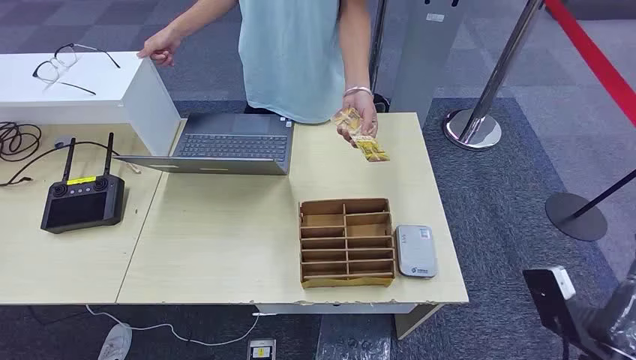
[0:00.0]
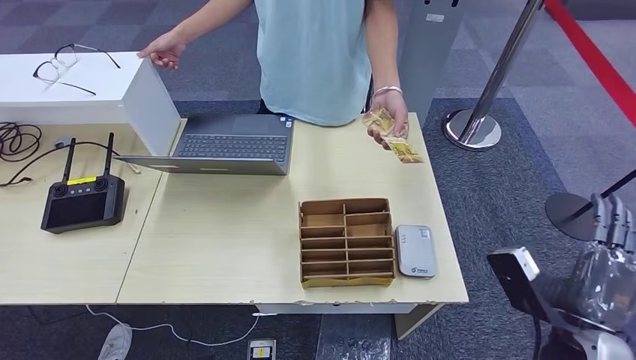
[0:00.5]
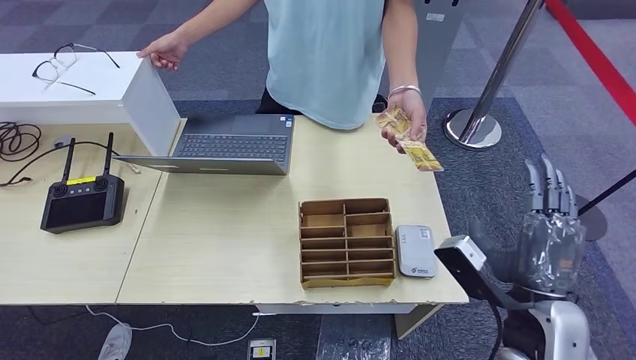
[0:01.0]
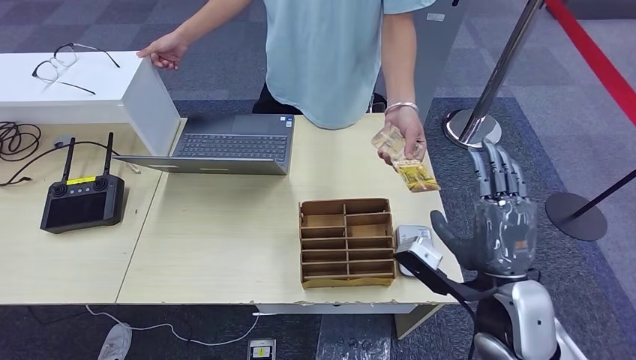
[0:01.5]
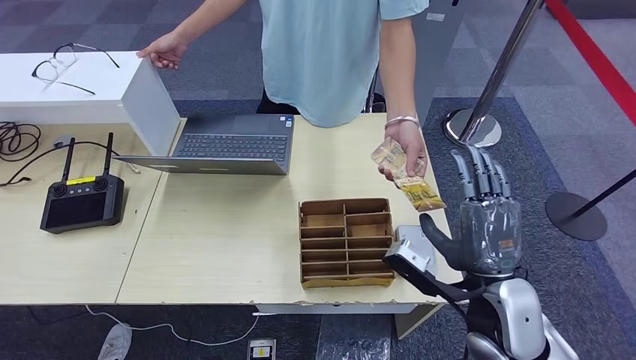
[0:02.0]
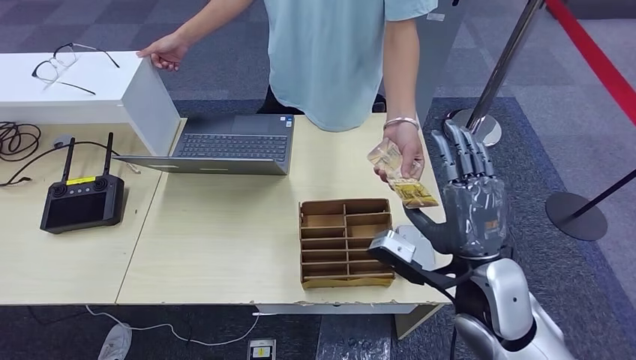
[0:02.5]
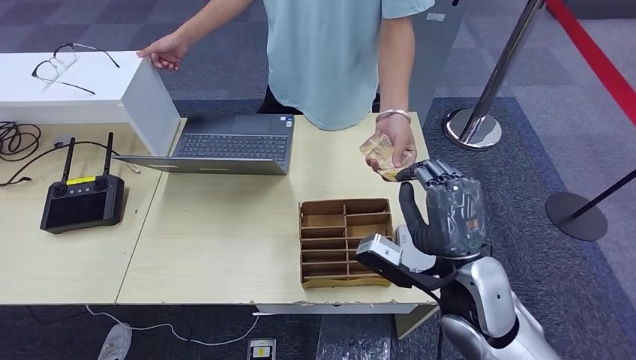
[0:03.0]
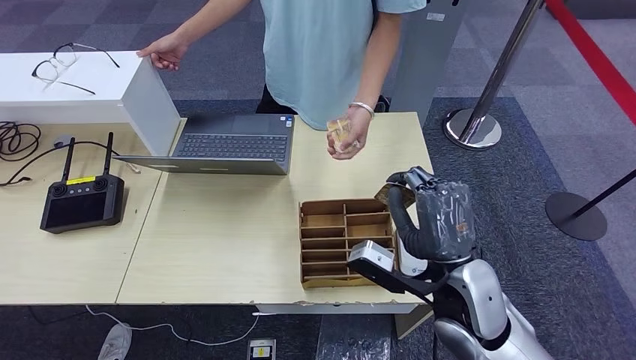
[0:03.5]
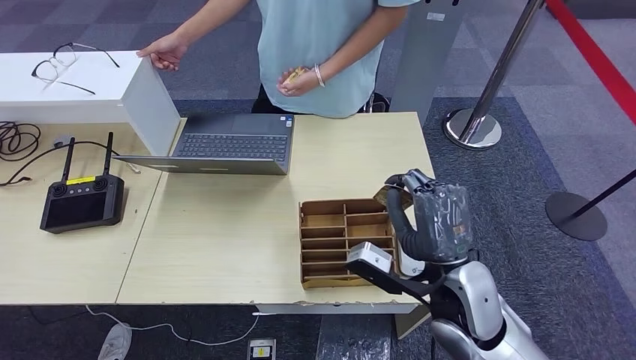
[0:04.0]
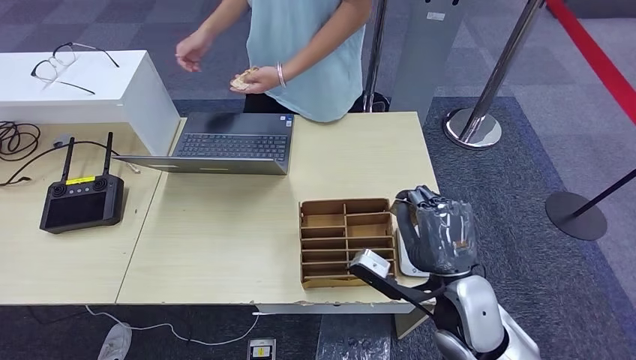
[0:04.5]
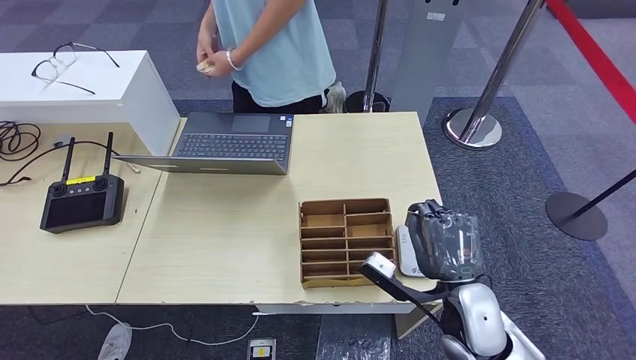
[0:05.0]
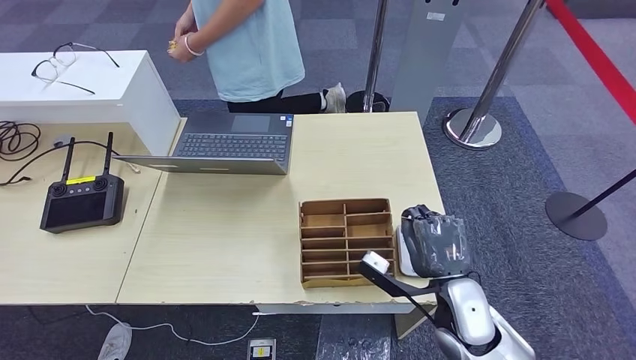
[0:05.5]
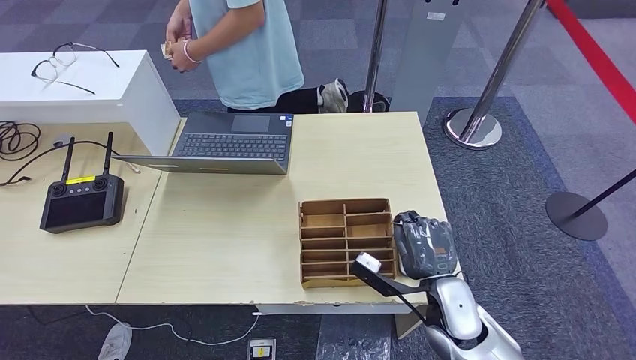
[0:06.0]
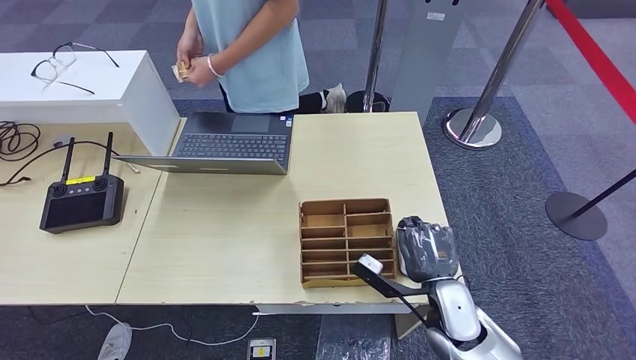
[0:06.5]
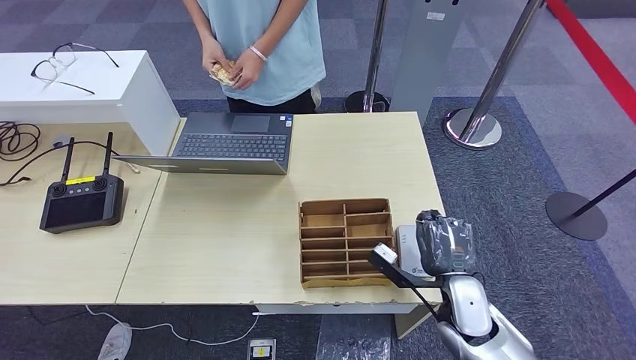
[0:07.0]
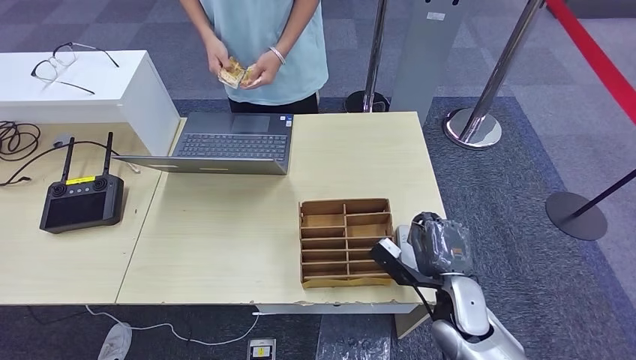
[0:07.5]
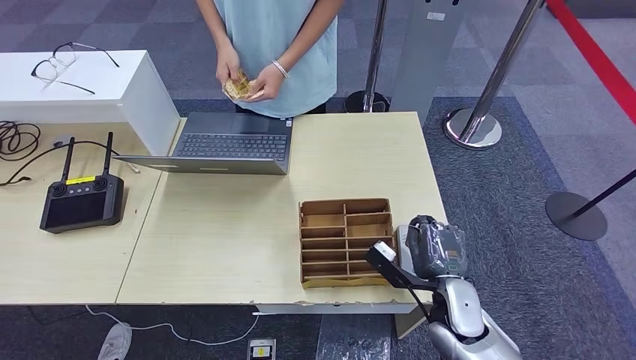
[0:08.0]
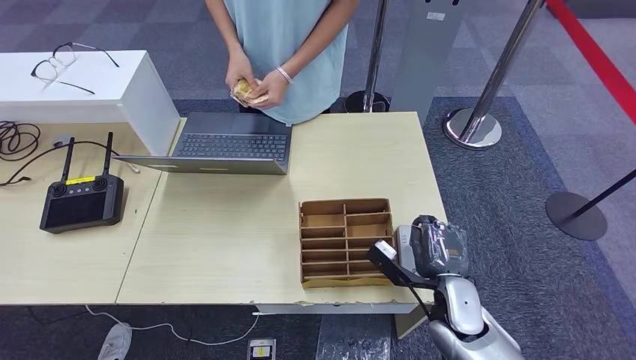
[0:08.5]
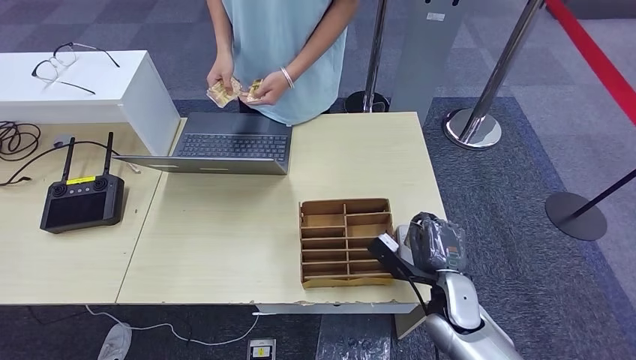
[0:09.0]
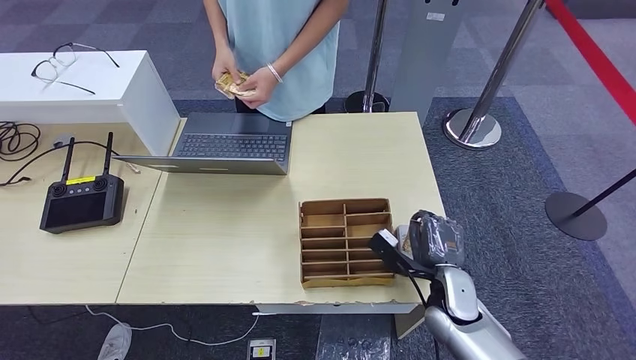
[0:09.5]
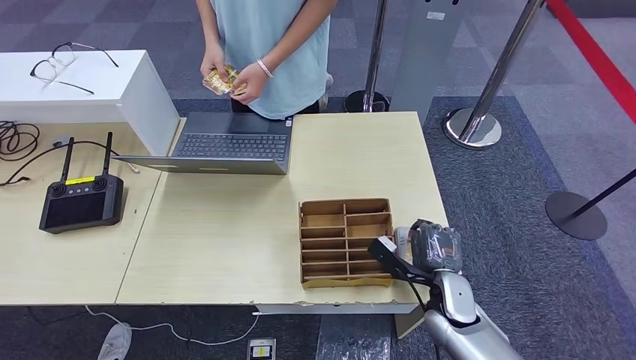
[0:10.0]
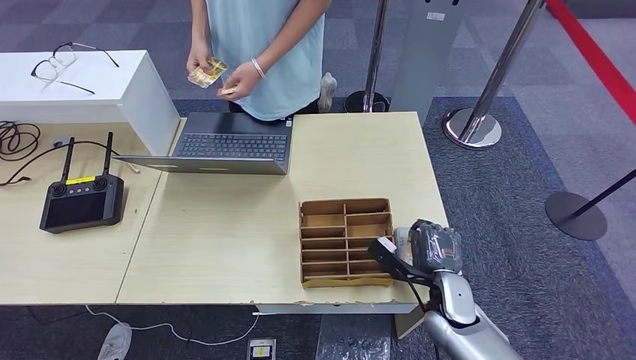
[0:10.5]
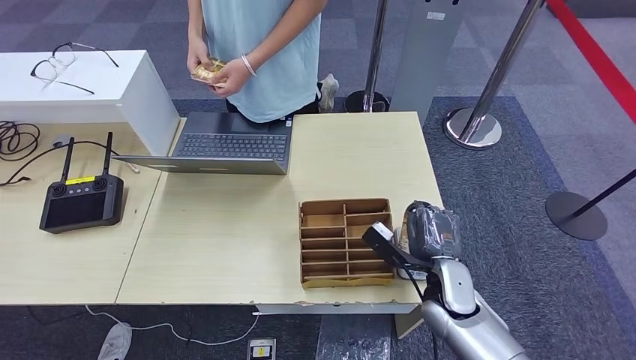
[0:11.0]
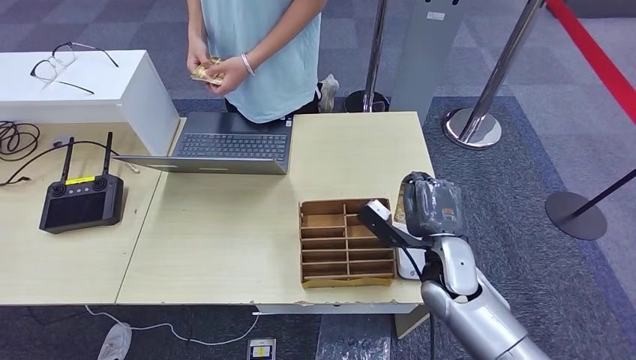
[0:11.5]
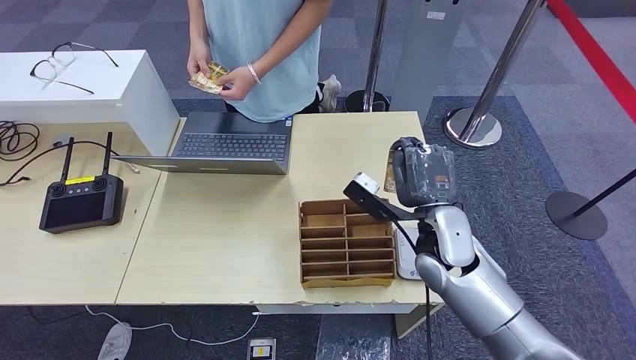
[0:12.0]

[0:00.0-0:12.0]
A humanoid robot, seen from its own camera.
Step, 0:00.0 to 0:03.5: Take the ID card from the person's hand.
Step, 0:04.0 to 0:09.5: Place the ID card on the card reader.
0:02.0 to 0:04.0: The right hand moves approximately 5 cm.
0:04.0 to 0:06.0: The right hand heads downward, covering roughly 10 cm.
0:06.0 to 0:08.0: The hands make only small movements.
0:08.0 to 0:10.0: The hands make only small movements.
0:10.0 to 0:12.0: The right hand heads upward, covering approximately 15 cm.

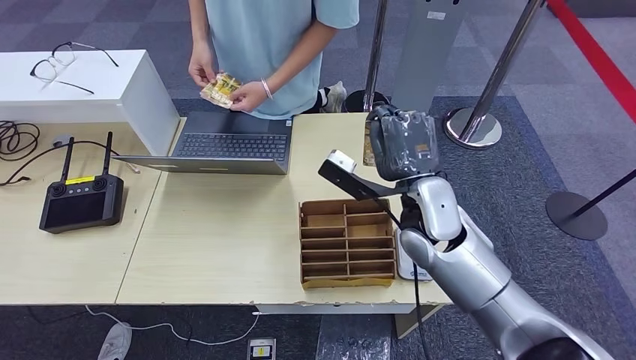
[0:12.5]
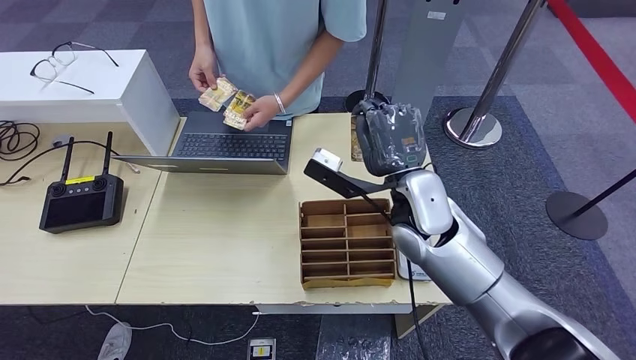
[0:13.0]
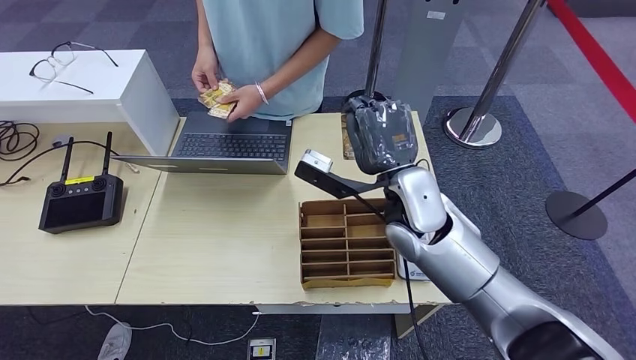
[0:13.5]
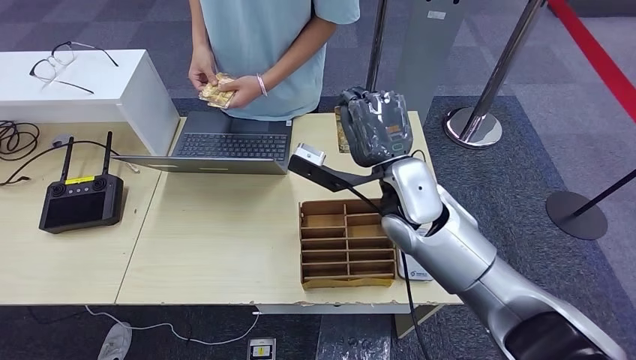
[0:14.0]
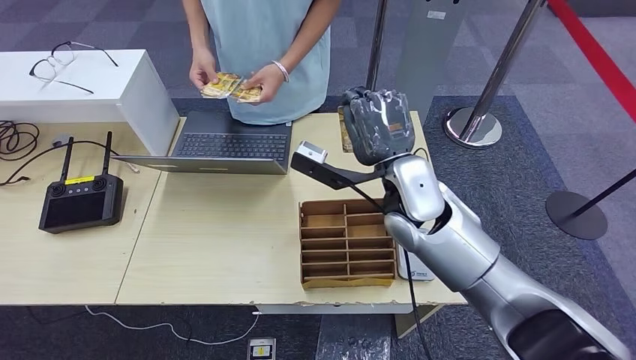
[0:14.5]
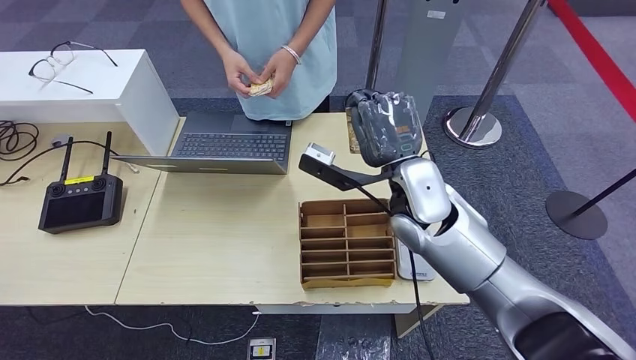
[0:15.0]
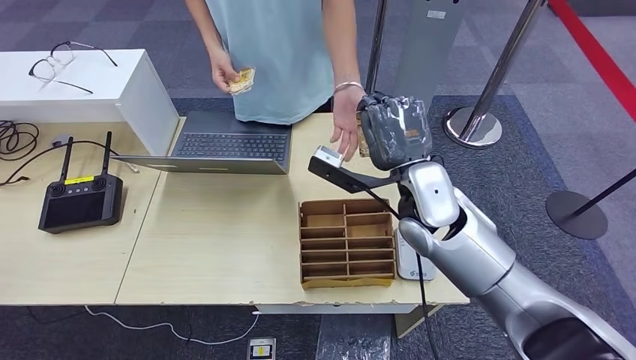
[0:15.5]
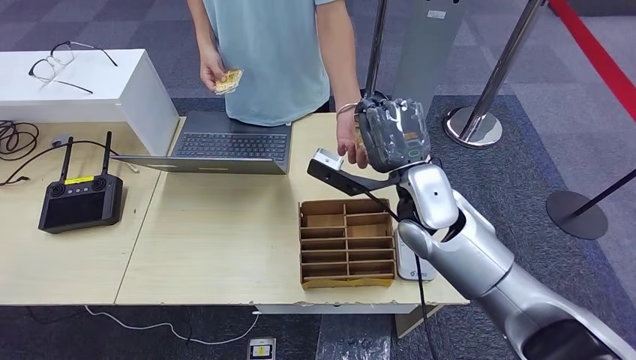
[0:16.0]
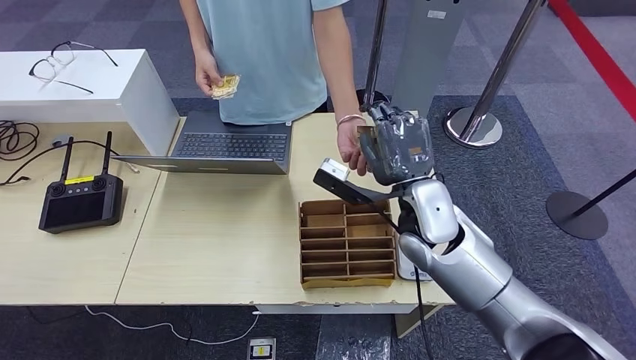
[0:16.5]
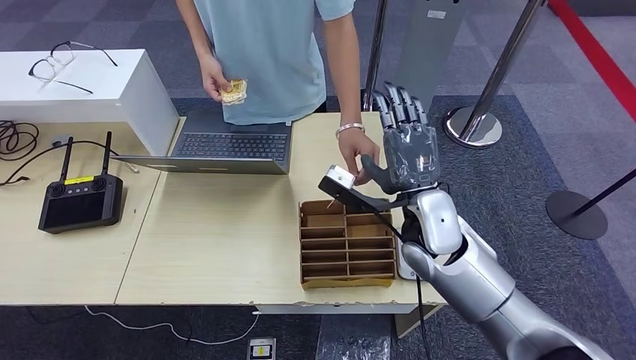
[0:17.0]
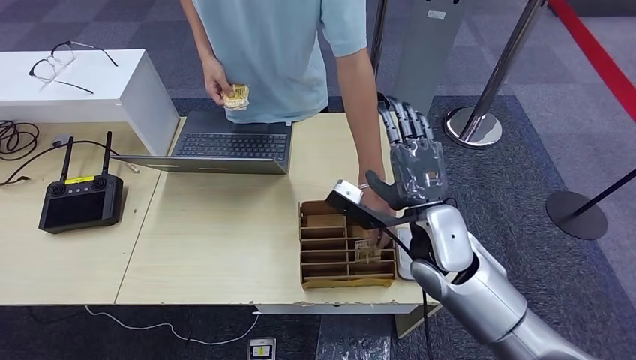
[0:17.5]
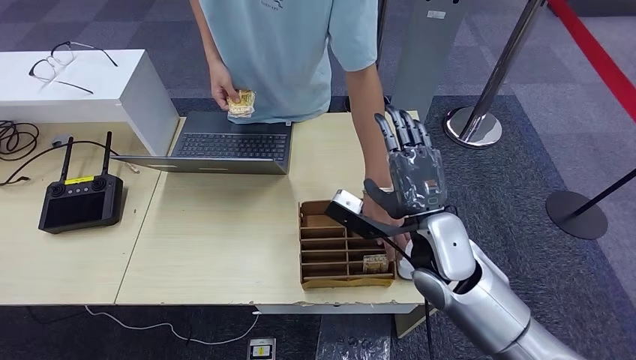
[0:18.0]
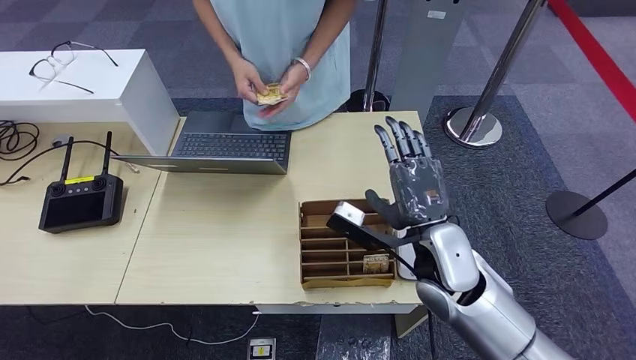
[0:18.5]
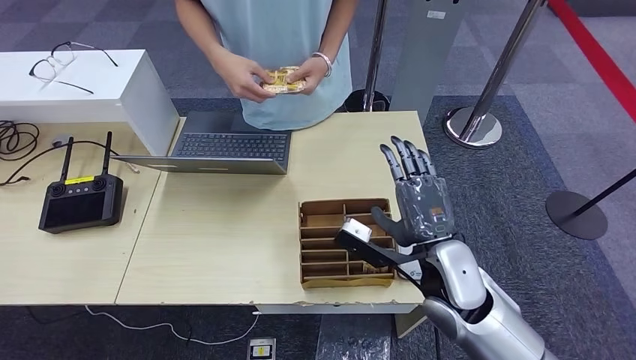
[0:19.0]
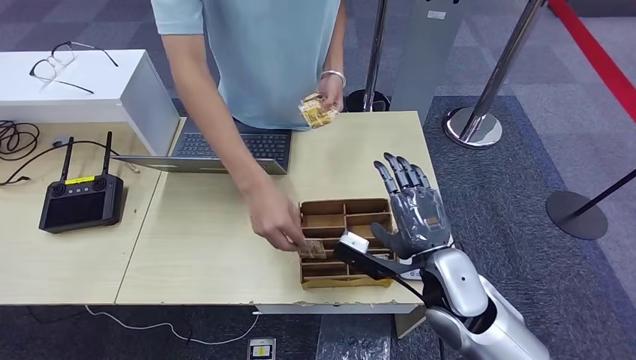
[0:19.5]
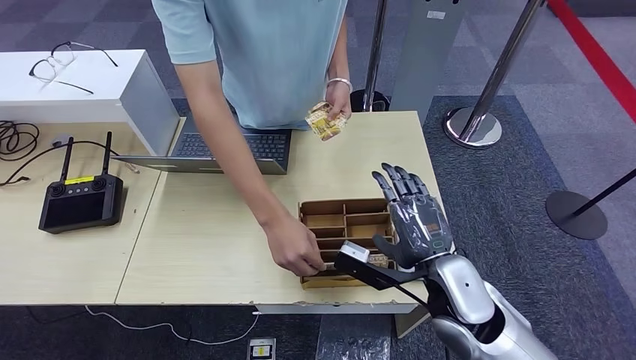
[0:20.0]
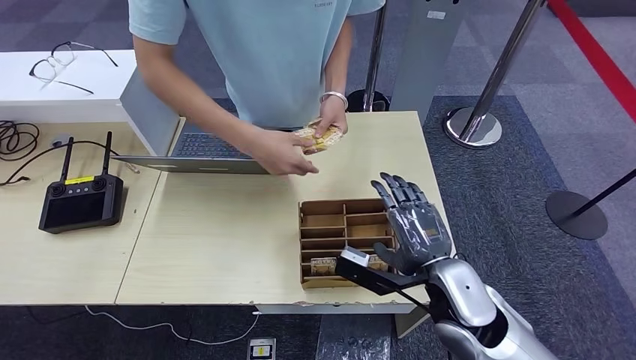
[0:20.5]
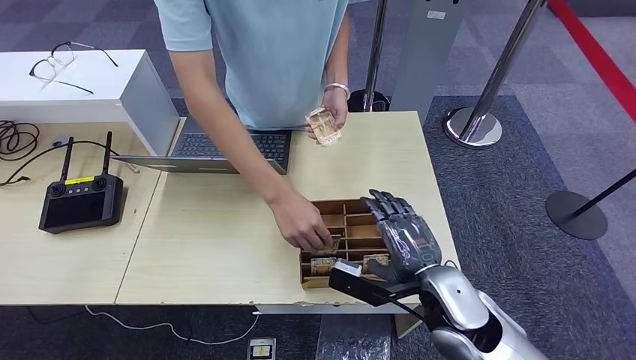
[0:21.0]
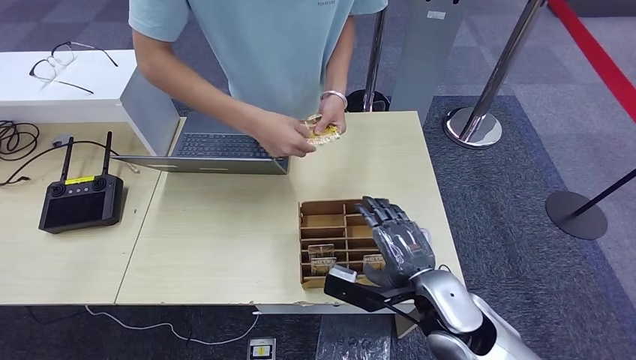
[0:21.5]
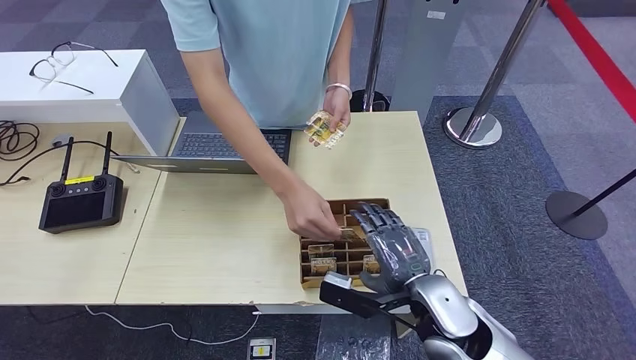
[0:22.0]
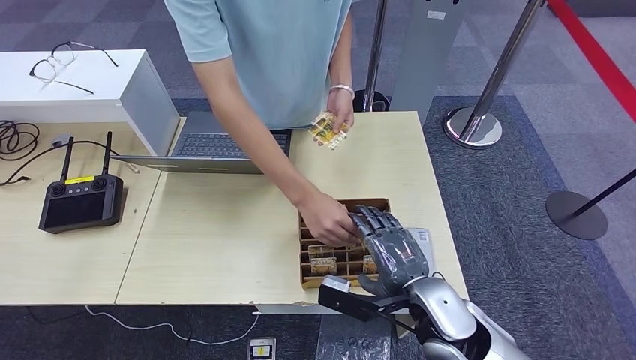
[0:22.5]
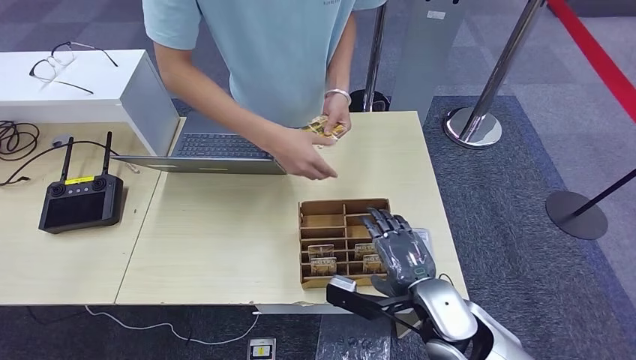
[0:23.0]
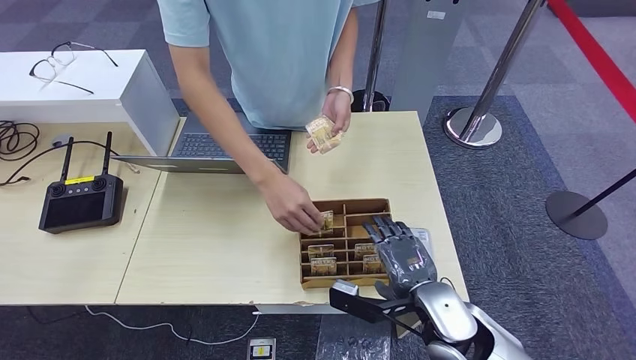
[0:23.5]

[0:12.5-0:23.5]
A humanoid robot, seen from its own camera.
Step, 0:12.5 to 0:17.5: Hand the ID card to the person.
0:12.5 to 0:16.0: The hands make only small movements.
0:16.0 to 0:18.0: The right hand shifts about 5 cm backward.
0:18.0 to 0:20.0: The right hand is displaced backward by about 5 cm.
0:20.0 to 0:21.5: The hands make only small movements.
0:21.5 to 0:23.5: The hands stay close to where they were, moving slightly.
